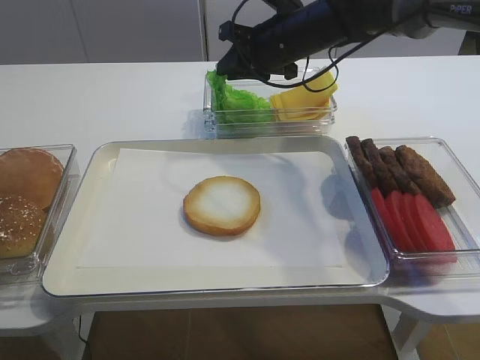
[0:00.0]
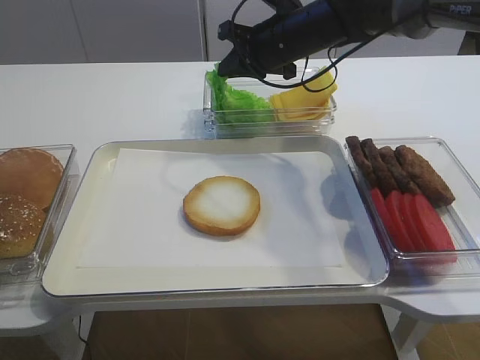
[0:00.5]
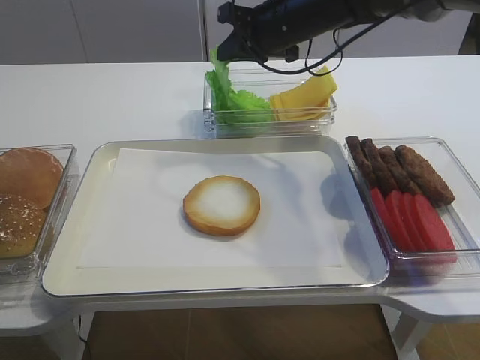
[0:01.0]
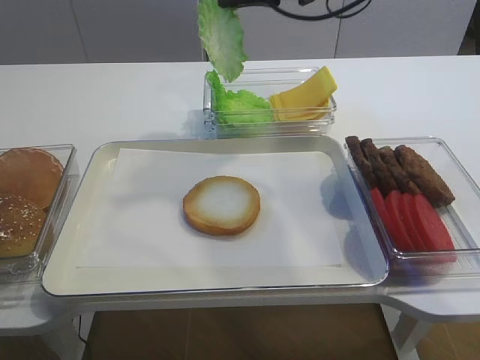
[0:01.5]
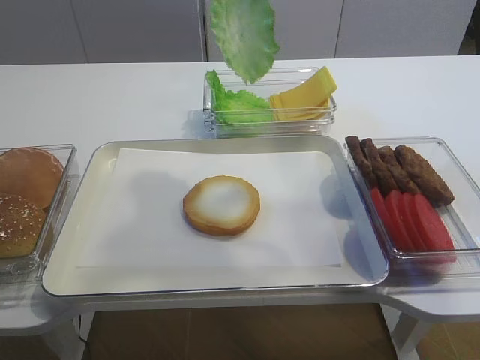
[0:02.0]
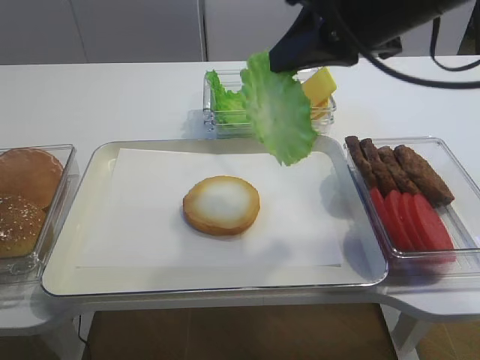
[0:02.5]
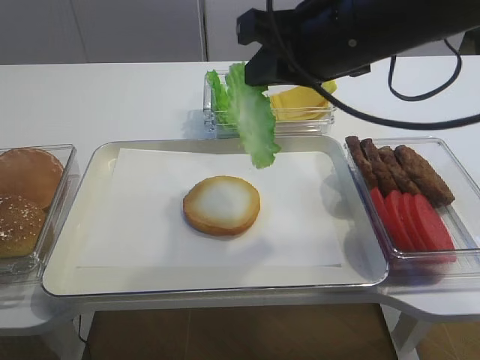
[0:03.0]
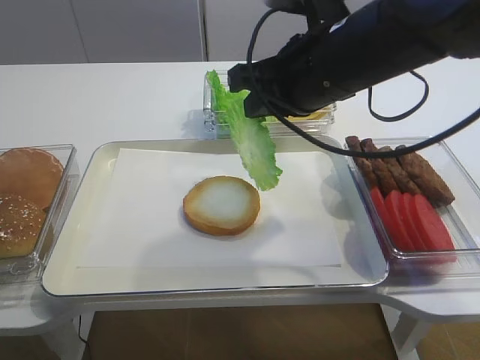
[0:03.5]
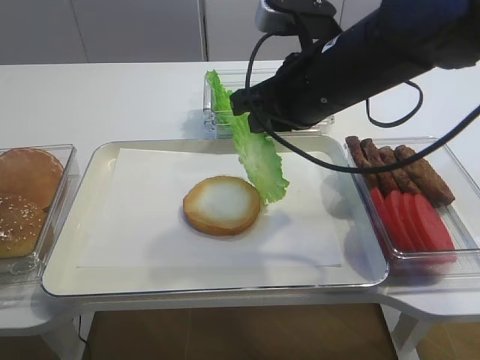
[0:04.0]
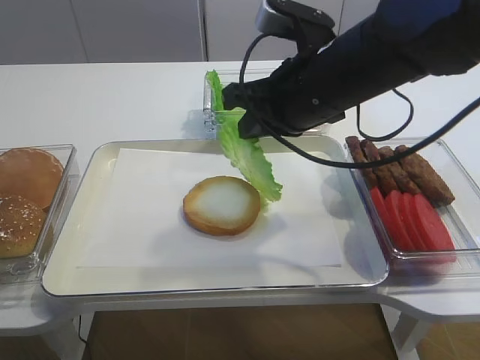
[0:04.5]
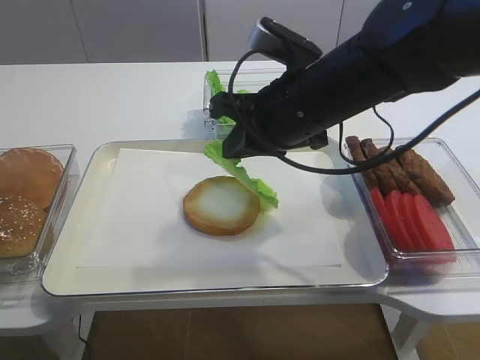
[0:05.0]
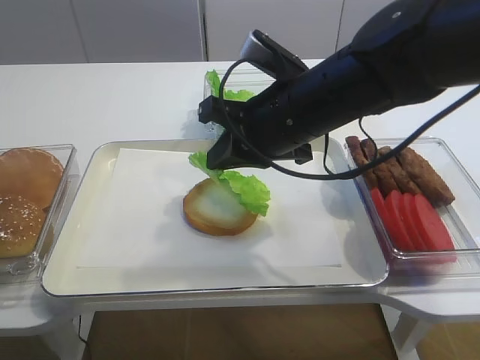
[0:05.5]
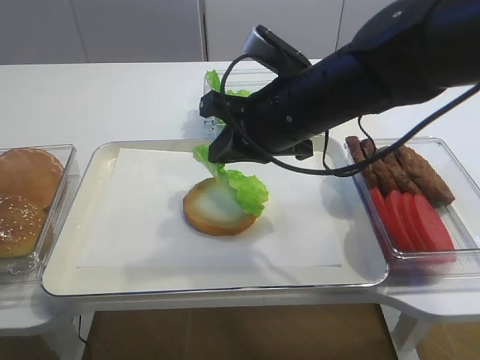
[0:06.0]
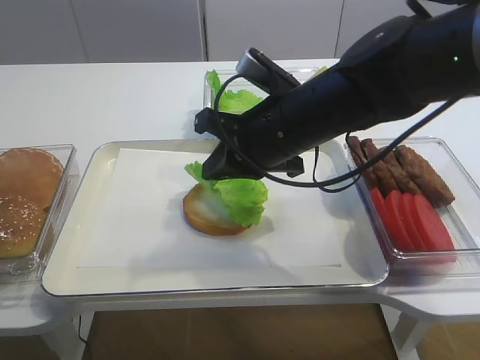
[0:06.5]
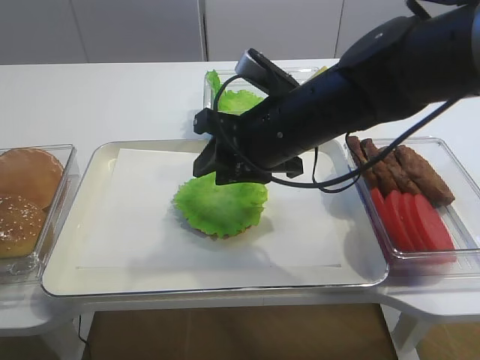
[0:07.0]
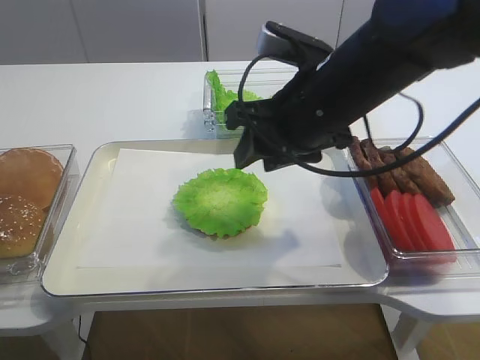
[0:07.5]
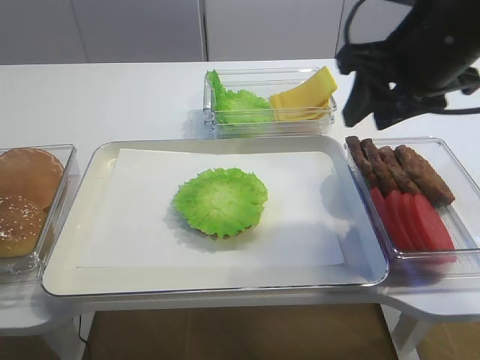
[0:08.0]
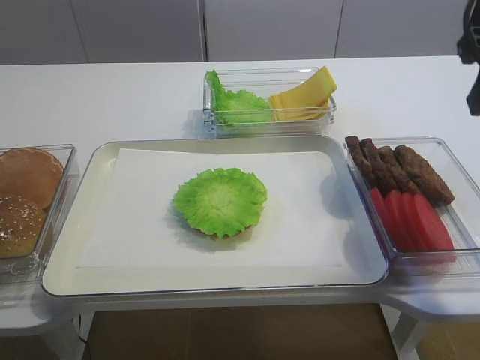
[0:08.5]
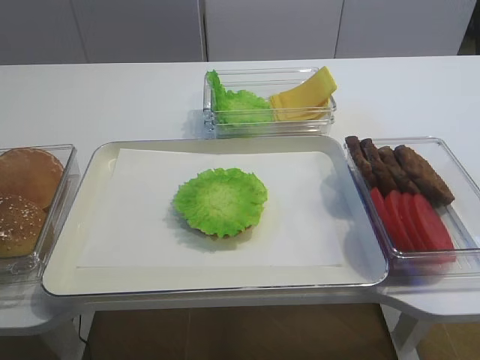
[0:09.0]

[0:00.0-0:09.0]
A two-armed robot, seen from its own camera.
Step, 0:01.5 to 0:08.5: Place the lettuce leaf on the bread slice with the right gripper.
0:00.0 to 0:02.0: The right gripper is displaced upward and backward by some 20 cm.
0:02.0 to 0:04.5: The right gripper is displaced downward by some 15 cm.
0:04.5 to 0:07.0: The right gripper ends up some 5 cm from where it was, and opens its fingers.
0:07.0 to 0:09.0: The right gripper is displaced to the right, backward and upward by about 30 cm.

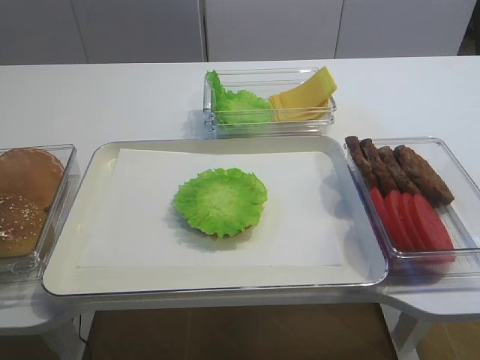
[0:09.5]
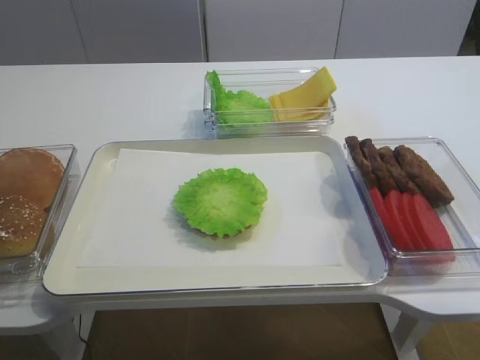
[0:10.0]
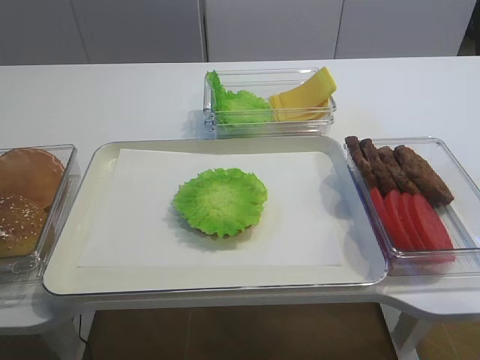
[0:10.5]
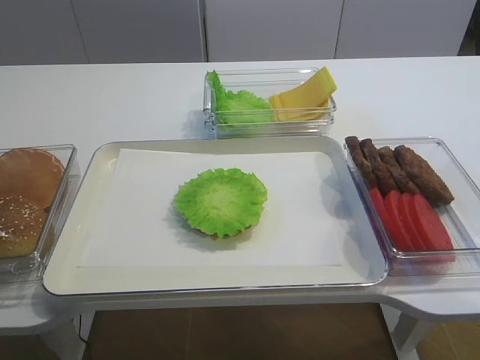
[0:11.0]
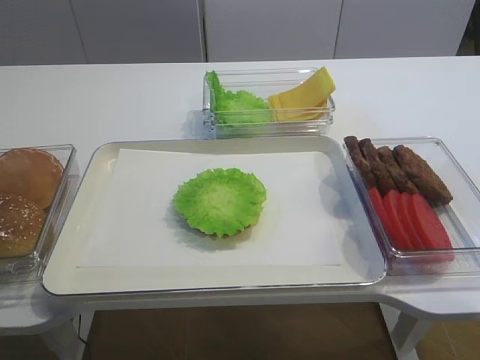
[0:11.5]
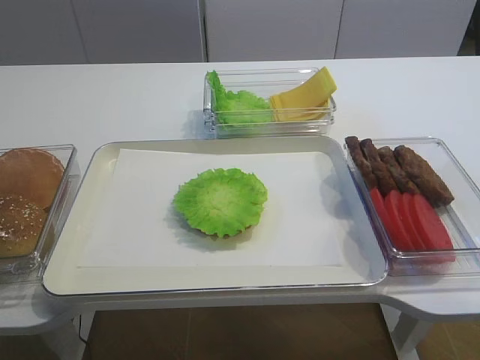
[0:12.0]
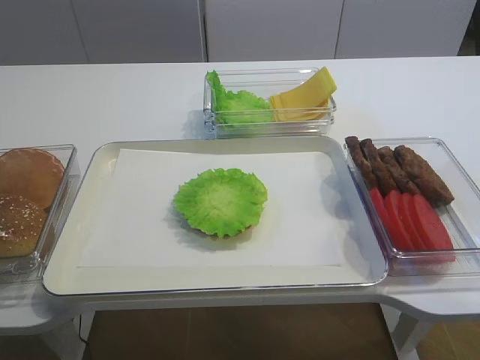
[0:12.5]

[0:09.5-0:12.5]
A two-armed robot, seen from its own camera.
0:09.5 to 0:11.0: The right gripper shifts about 10 cm downward.

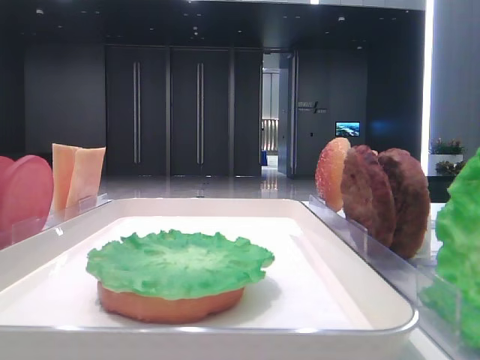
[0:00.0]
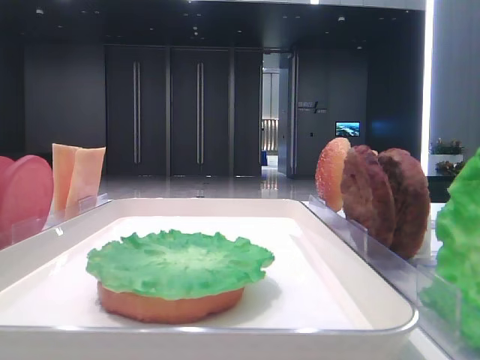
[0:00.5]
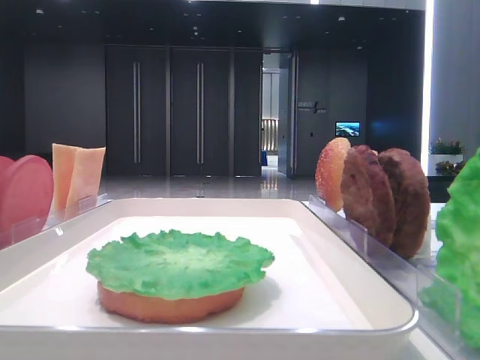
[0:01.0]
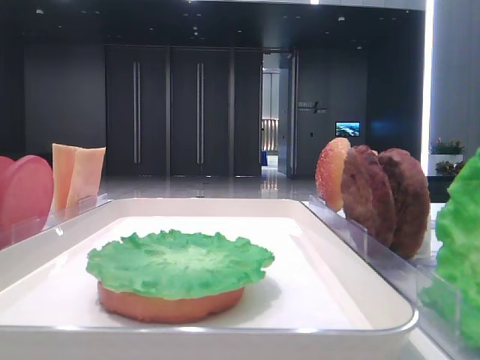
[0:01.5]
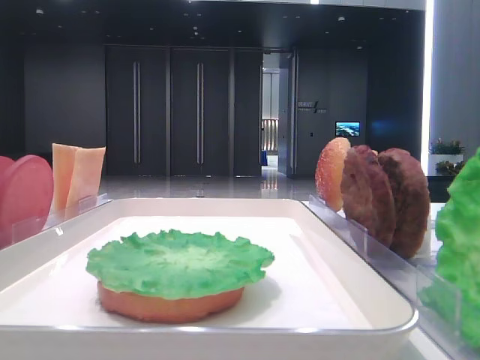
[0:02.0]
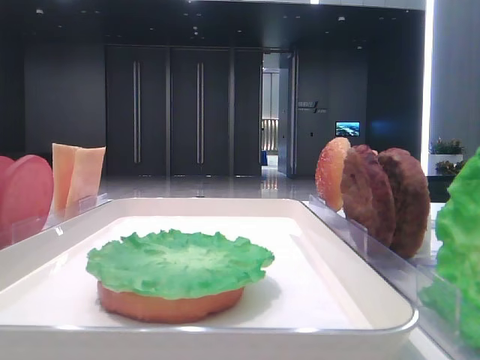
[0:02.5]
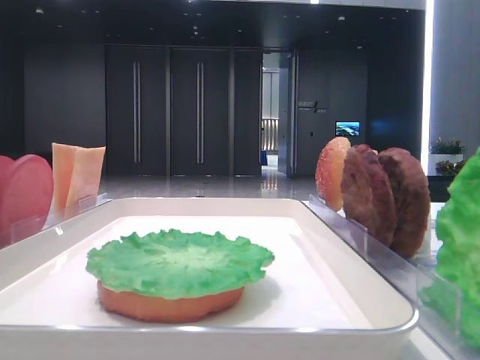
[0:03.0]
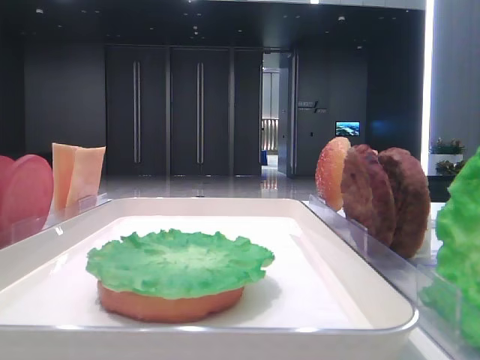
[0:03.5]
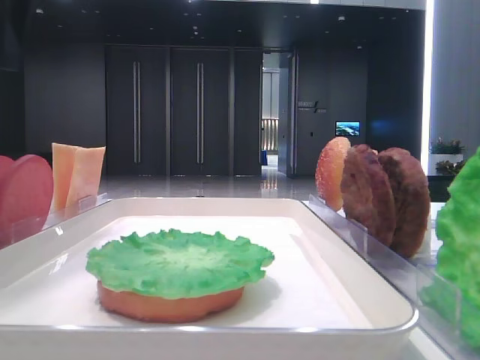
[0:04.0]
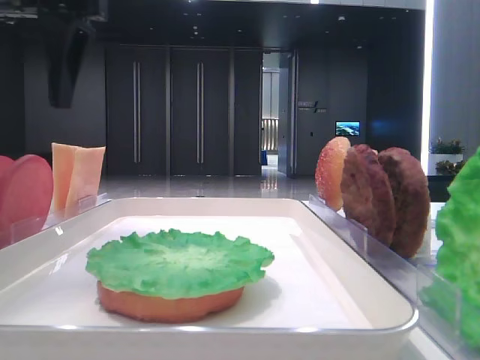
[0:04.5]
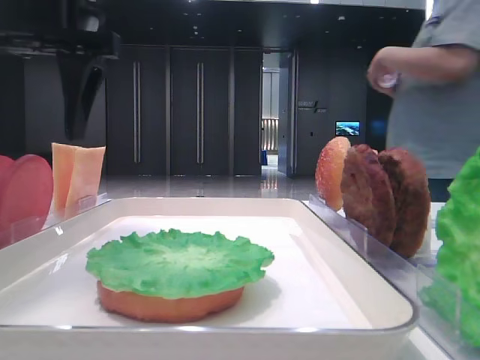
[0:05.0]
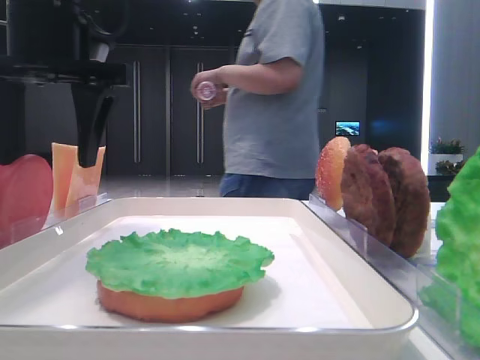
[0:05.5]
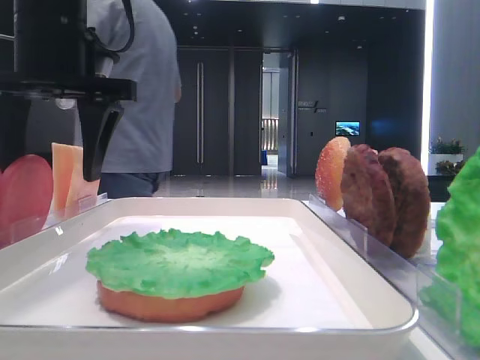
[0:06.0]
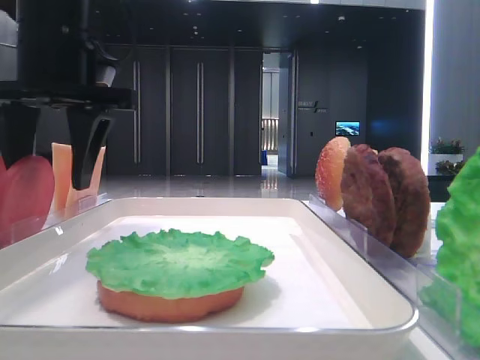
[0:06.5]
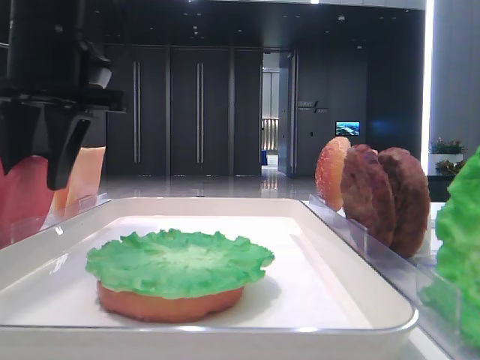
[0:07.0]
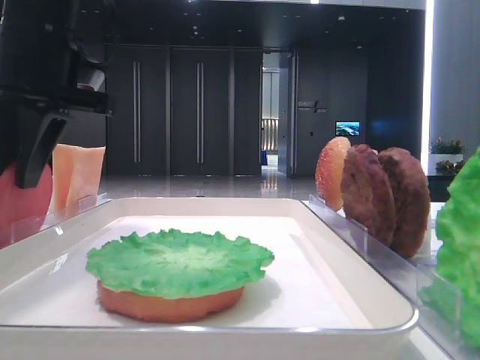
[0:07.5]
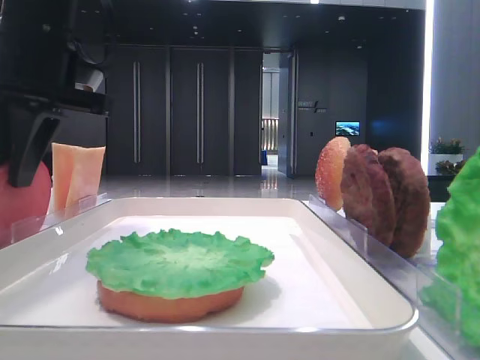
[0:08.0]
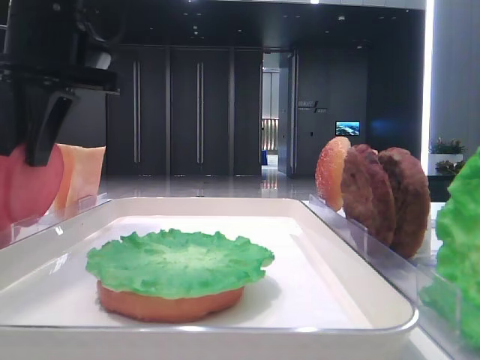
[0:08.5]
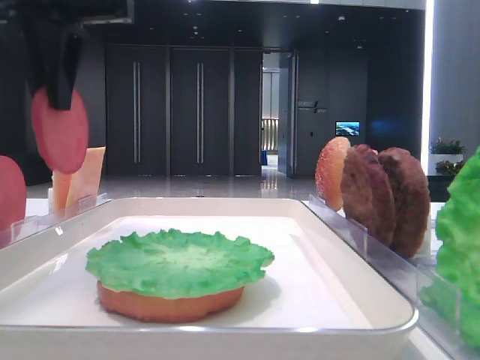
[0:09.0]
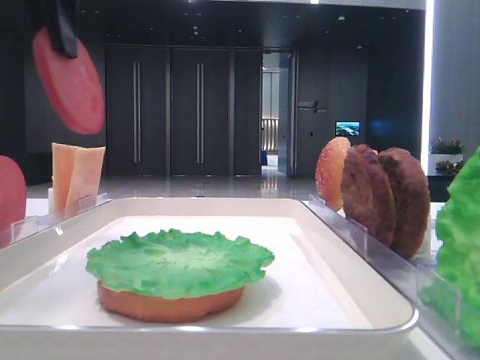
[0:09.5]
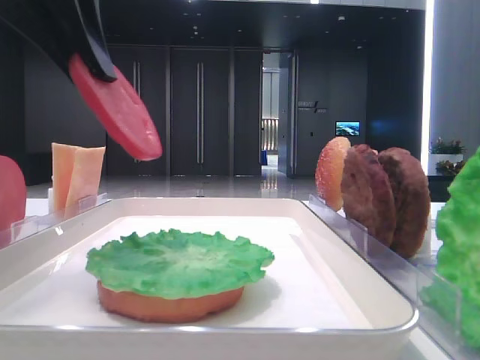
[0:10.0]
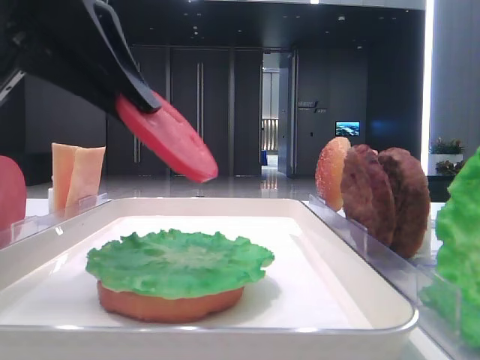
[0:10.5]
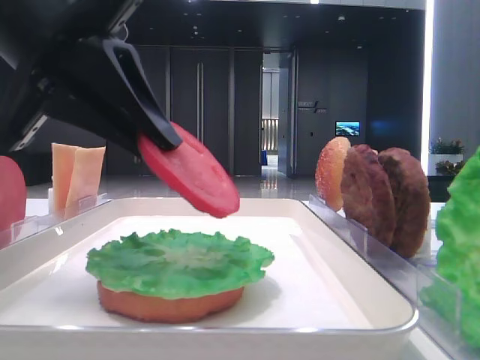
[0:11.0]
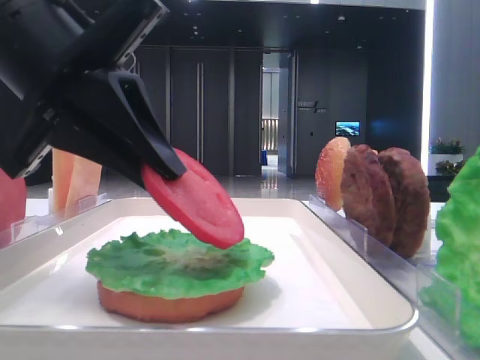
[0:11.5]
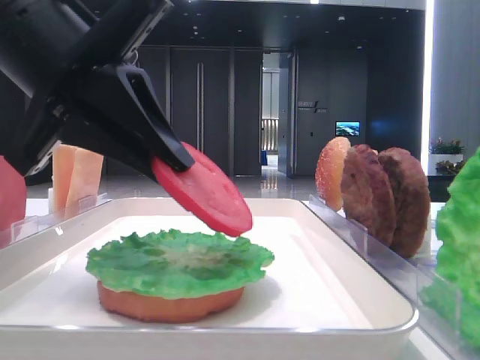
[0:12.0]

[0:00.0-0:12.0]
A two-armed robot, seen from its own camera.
Step, 0:00.0 to 0:07.5: Pick up the tomato slice with the left hand.
0:02.0 to 0:04.0: The left gripper travels forward by roughly 20 cm.
0:04.0 to 0:06.0: The left gripper travels downward and to the right by approximately 10 cm.
0:06.0 to 0:08.0: The left gripper closes its fingers.
0:08.0 to 0:10.0: The left gripper moves backward and upward, approximately 10 cm.
0:10.0 to 0:12.0: The left gripper moves downward, some 10 cm.

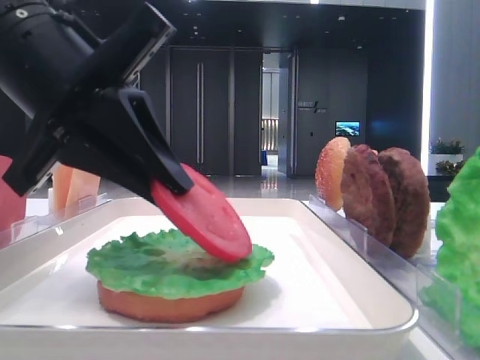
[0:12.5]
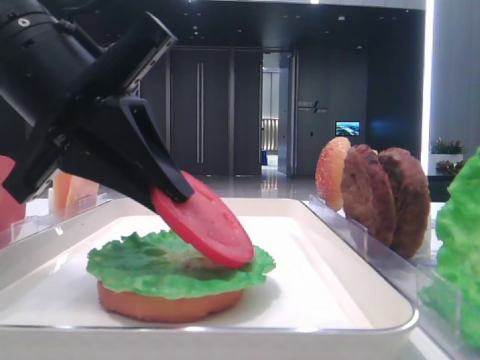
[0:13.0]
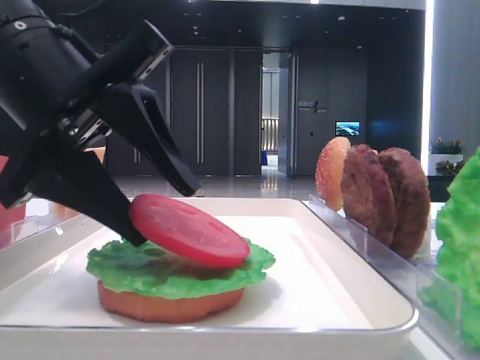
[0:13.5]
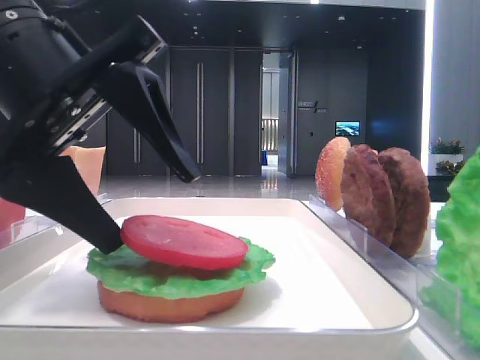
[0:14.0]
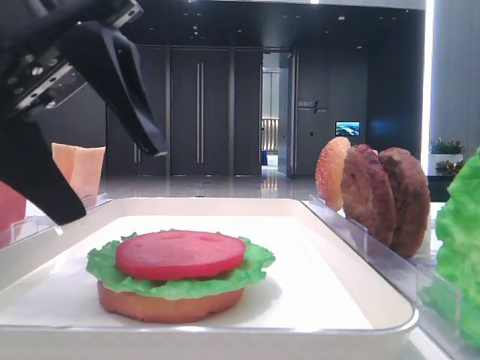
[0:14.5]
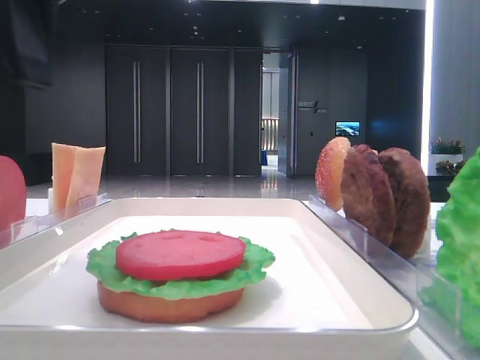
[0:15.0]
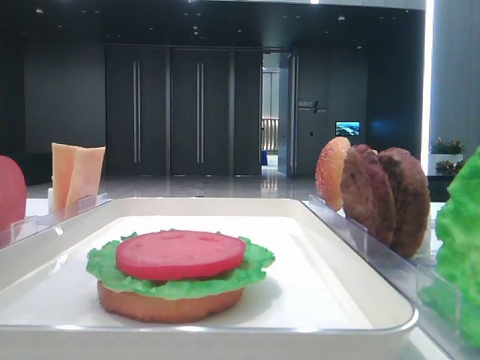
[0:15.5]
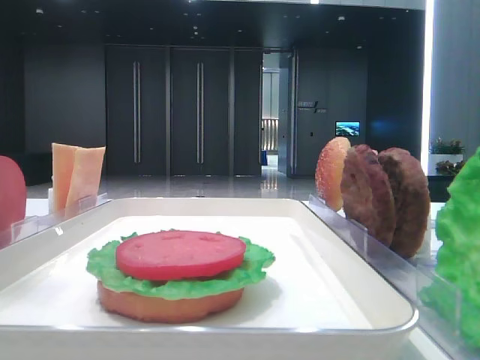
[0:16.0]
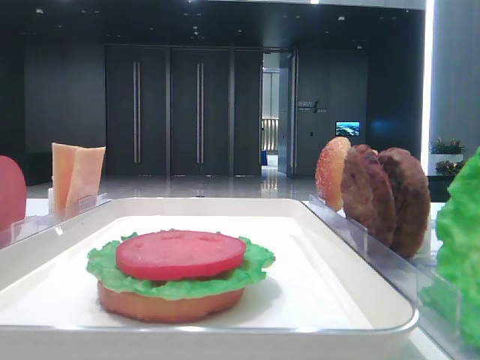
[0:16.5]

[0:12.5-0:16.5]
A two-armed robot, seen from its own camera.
0:12.5 to 0:14.5: The left gripper opens up.
0:14.5 to 0:16.5: The left gripper goes approximately 20 cm to the left and upward.
